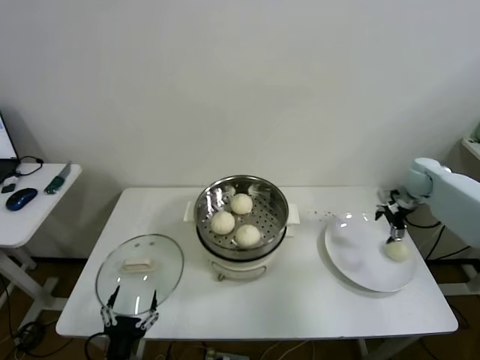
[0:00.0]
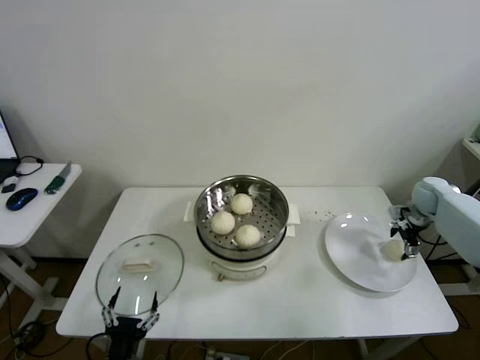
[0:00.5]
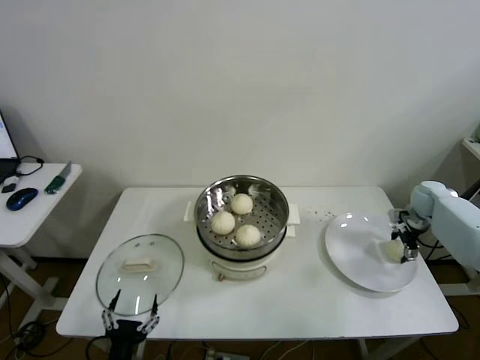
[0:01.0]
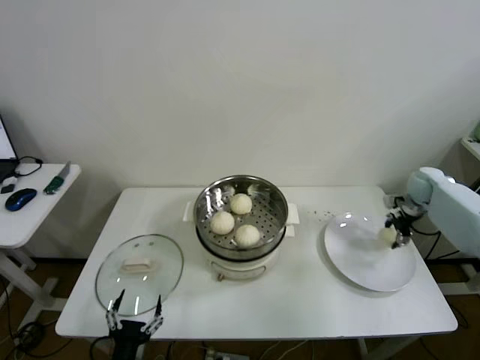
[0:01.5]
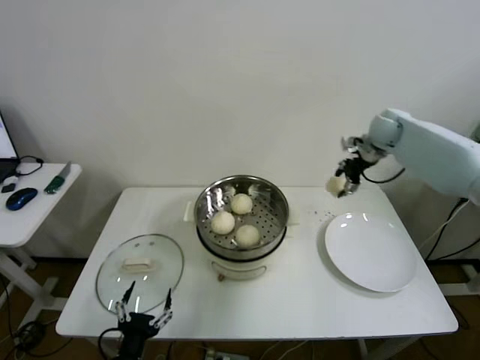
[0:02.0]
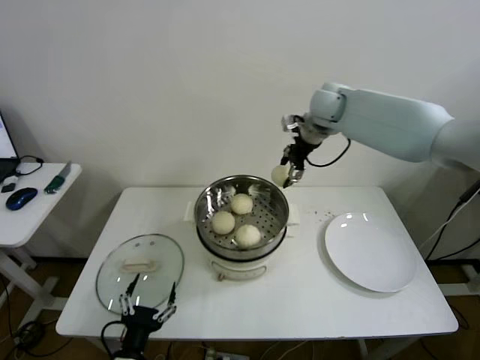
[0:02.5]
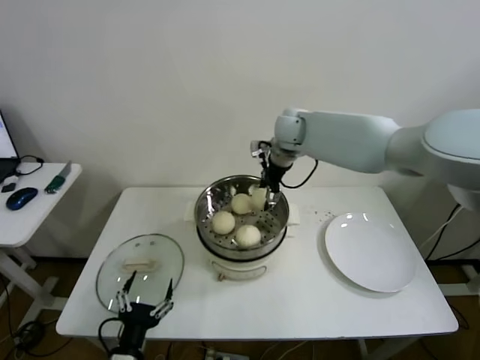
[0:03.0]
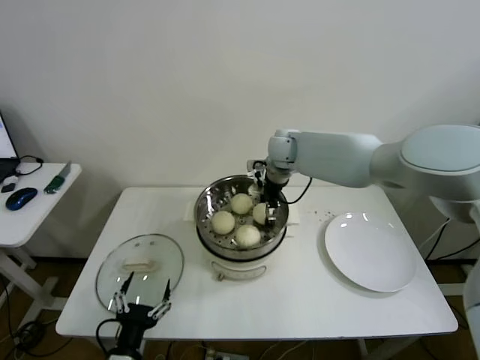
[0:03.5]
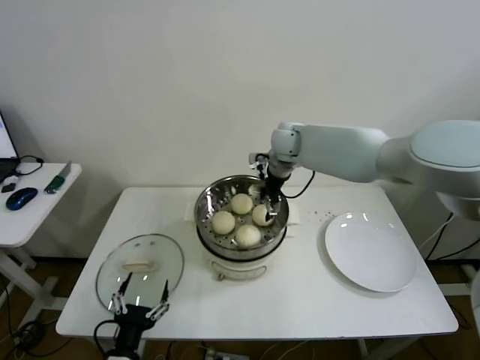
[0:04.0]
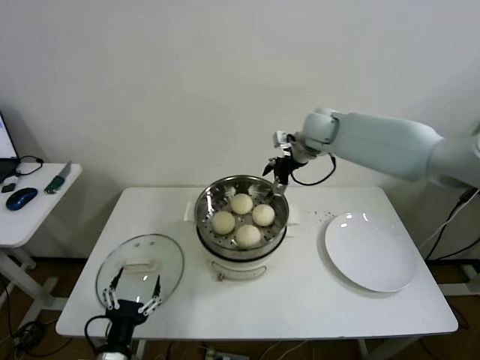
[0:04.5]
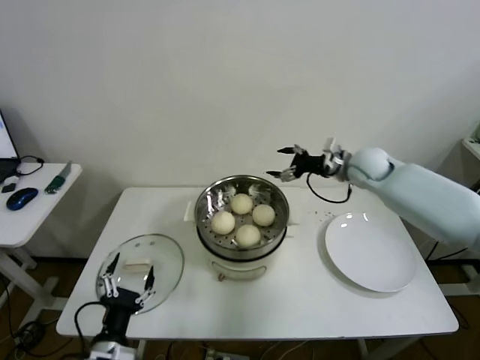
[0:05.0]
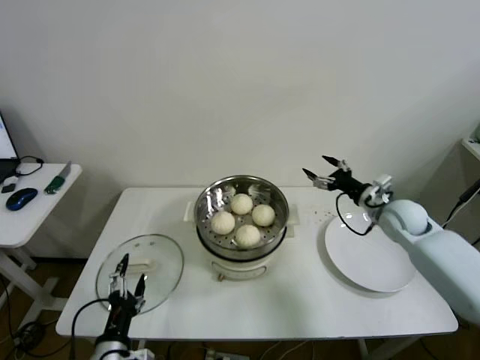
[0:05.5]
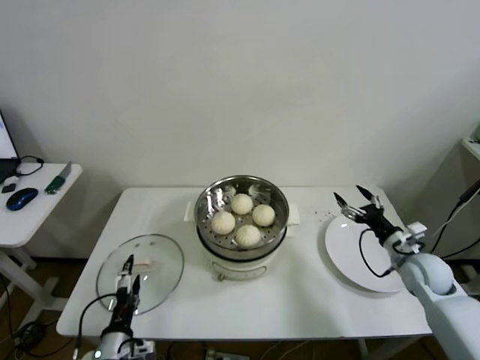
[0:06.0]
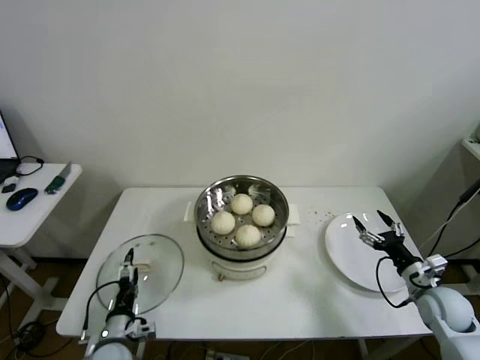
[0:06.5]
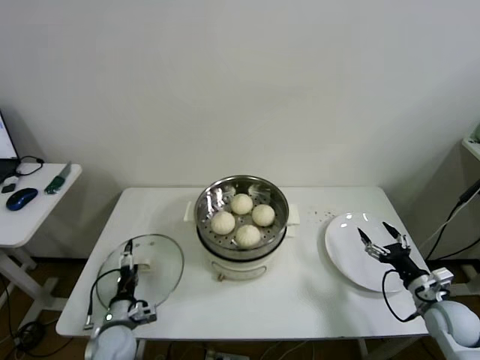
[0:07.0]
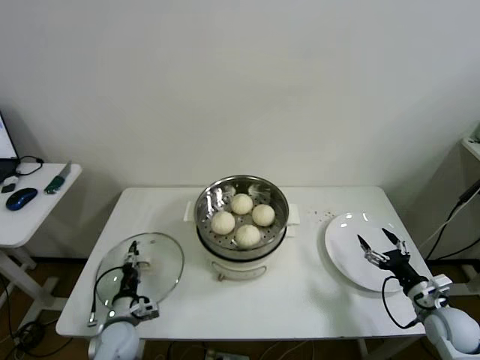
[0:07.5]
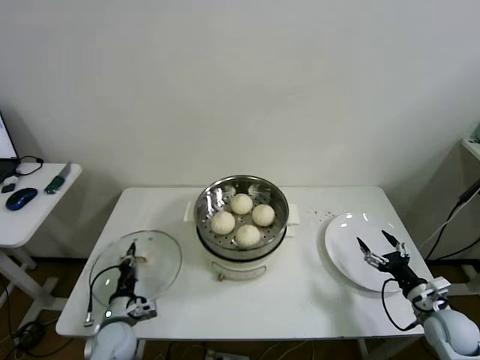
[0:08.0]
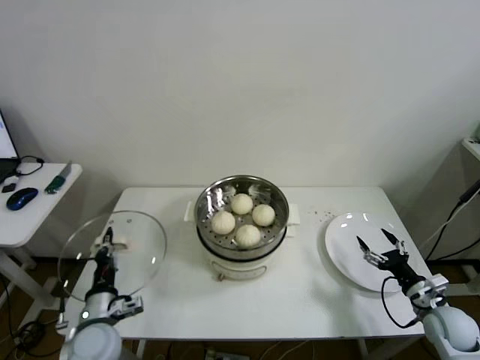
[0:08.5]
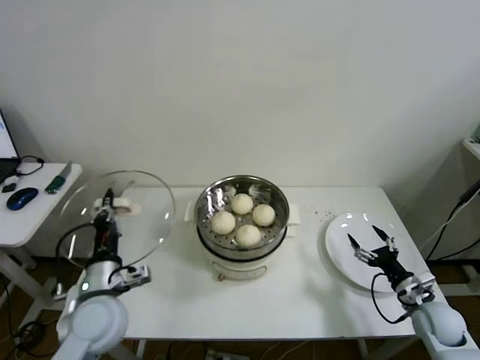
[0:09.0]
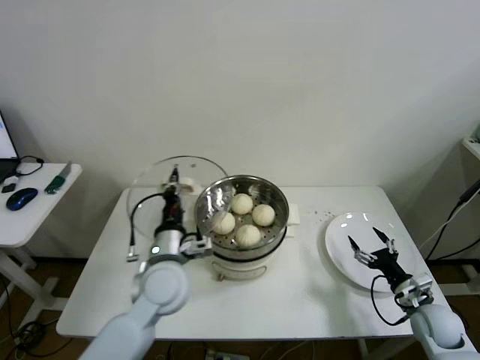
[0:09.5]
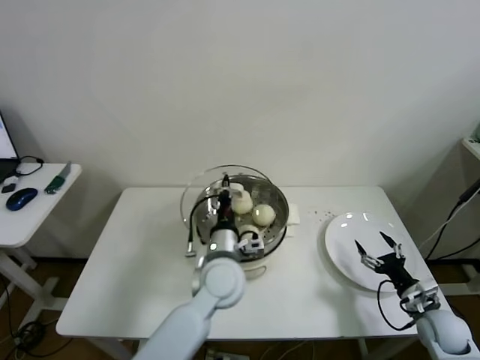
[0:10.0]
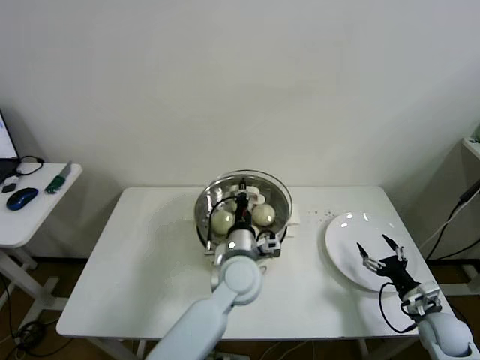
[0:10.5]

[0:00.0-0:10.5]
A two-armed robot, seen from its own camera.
Step, 0:01.5 to 0:03.5: Place the baozi on the steamer with right gripper.
Step, 0:04.0 to 0:07.5: Grasp the pot lid with left gripper.
0:00.0 to 0:02.0: The right gripper goes some 15 cm upward, to the left and forward, and closes its fingers.
0:02.0 to 0:04.0: The right gripper travels to the left by some 25 cm, and opens up.
0:04.0 to 0:06.5: The right gripper heads to the right, backward and downward, covering roughly 50 cm. Meanwhile the left gripper goes some 10 cm forward and downward.
0:06.5 to 0:08.5: The left gripper moves upward, approximately 5 cm, and closes up. The right gripper changes place by roughly 5 cm.
0:08.5 to 0:10.5: The left gripper travels to the right by approximately 30 cm.

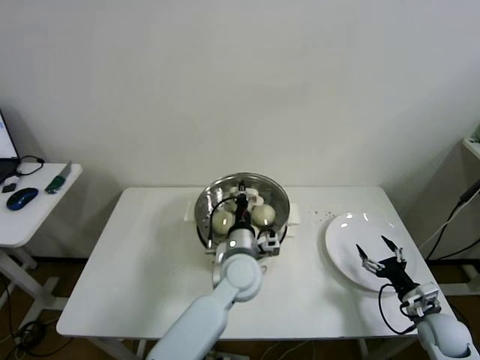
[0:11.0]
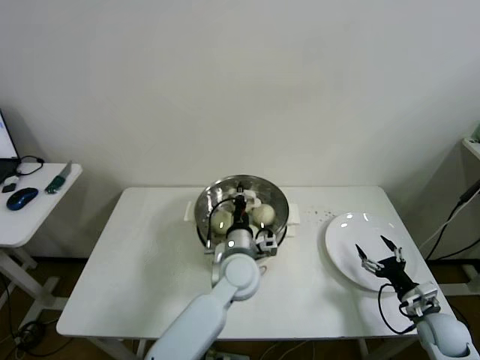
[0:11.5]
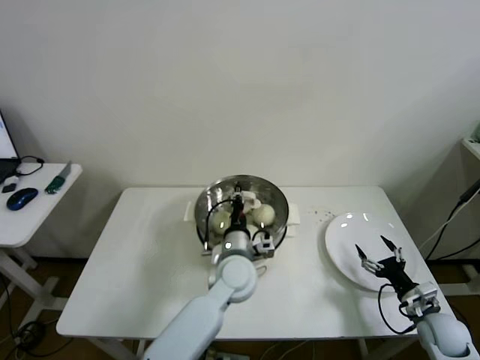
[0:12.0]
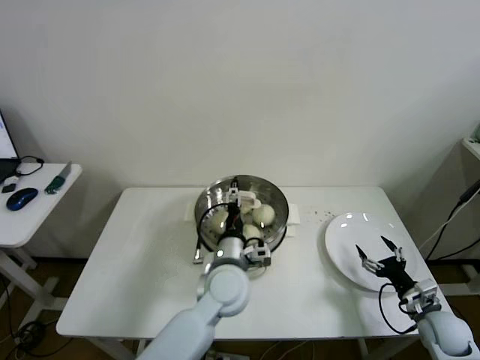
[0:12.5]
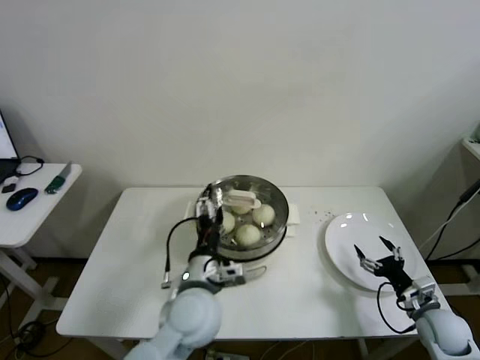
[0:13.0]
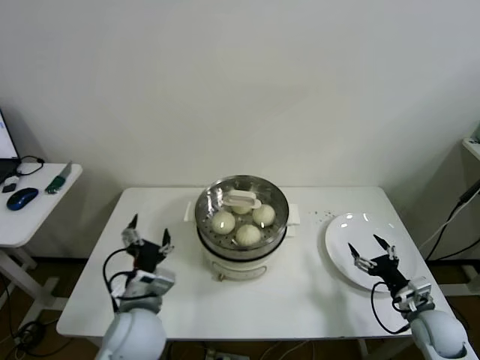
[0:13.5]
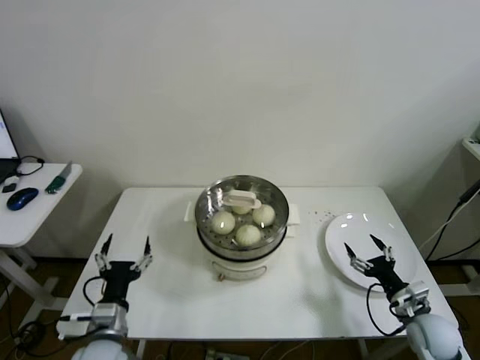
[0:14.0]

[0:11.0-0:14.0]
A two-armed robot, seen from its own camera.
0:11.0 to 0:12.5: The left gripper opens up.
0:12.5 to 0:14.0: The left gripper is displaced to the left and backward by some 25 cm.
